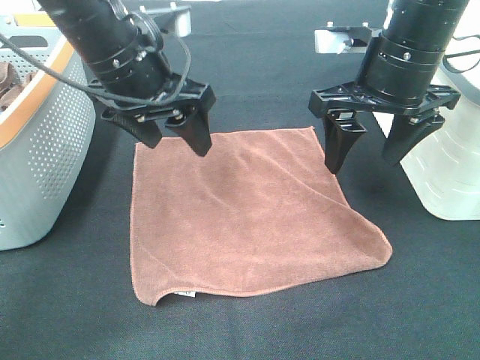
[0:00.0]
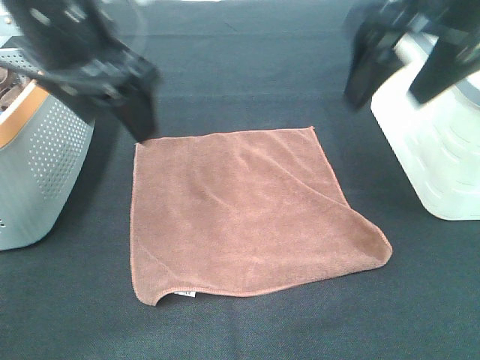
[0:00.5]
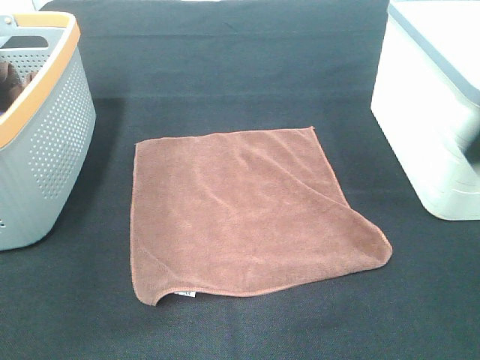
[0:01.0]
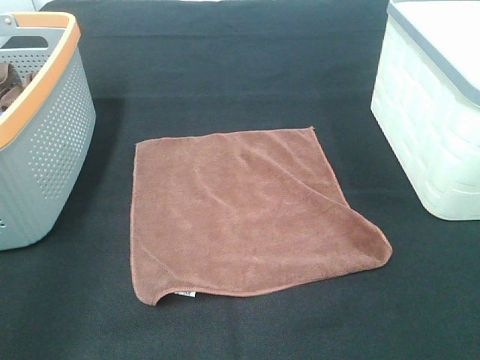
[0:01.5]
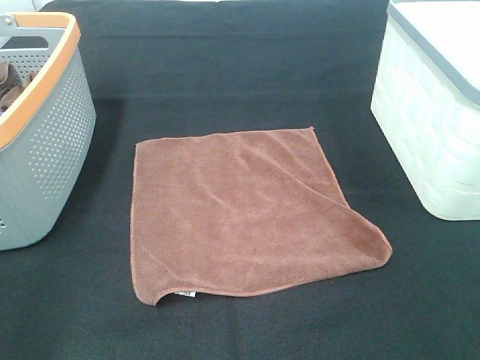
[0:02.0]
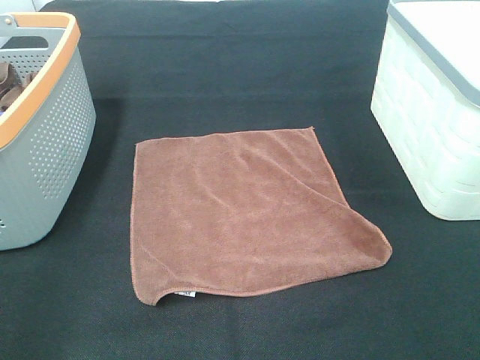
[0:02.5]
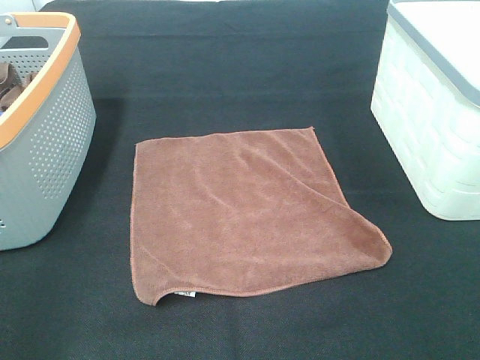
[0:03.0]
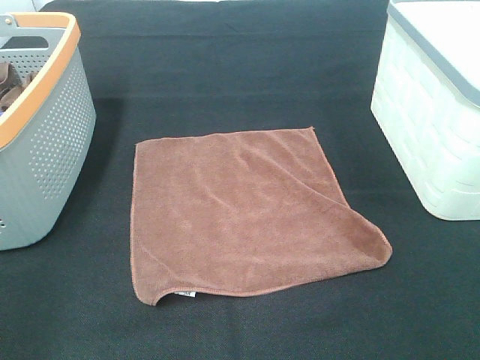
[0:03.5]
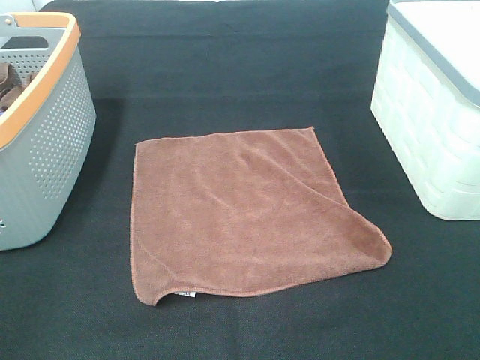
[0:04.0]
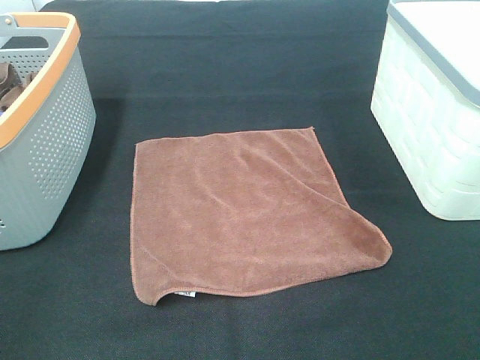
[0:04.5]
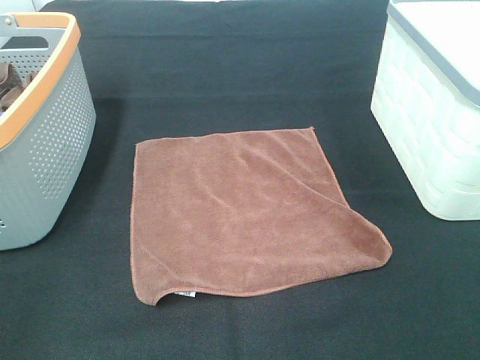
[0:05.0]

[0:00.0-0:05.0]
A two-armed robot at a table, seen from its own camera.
Task of the whole recording: Remove the towel and place it.
0:00.0 to 0:02.5: The left gripper travels backward and to the left by about 35 cm. The right gripper goes about 35 cm backward and to the right.

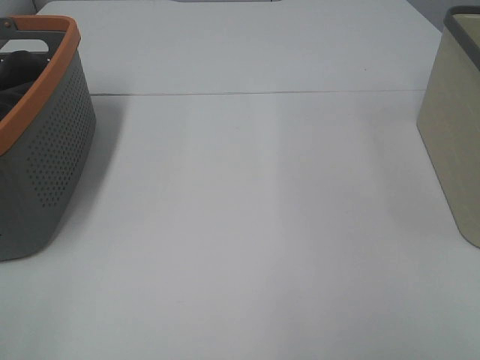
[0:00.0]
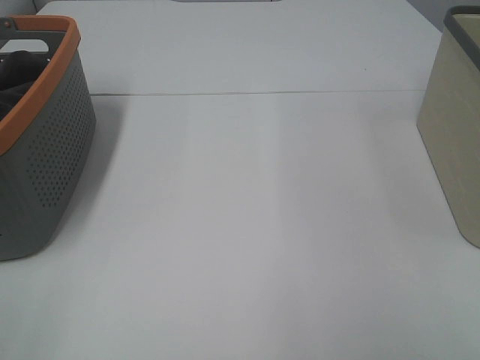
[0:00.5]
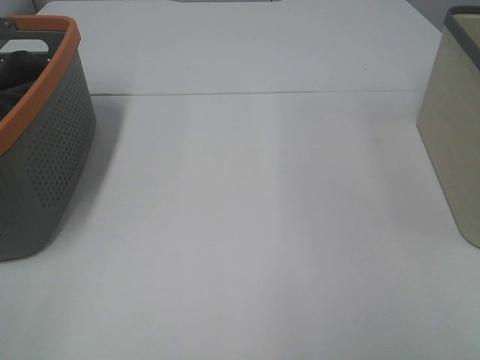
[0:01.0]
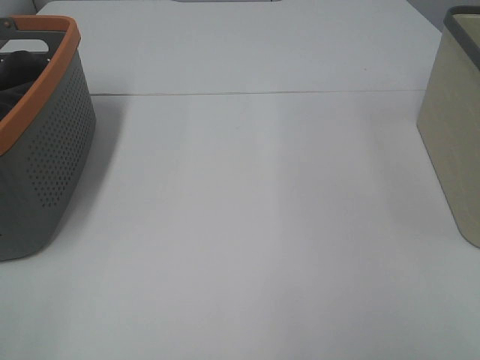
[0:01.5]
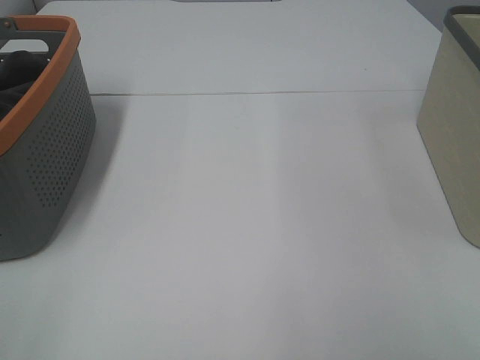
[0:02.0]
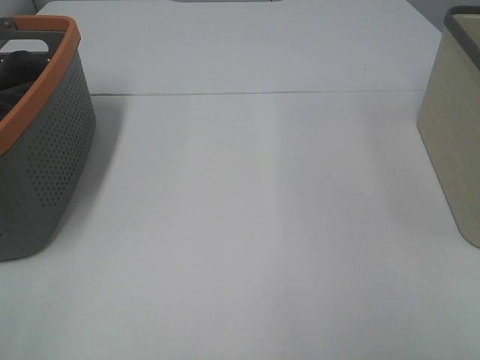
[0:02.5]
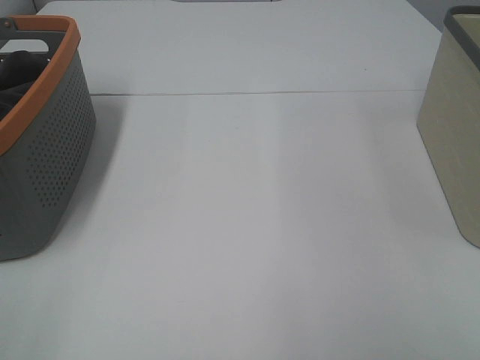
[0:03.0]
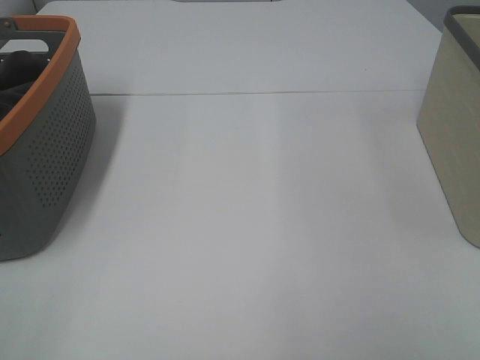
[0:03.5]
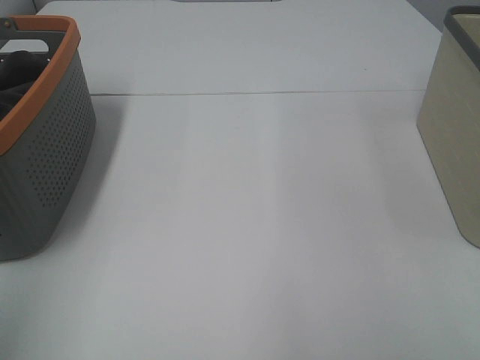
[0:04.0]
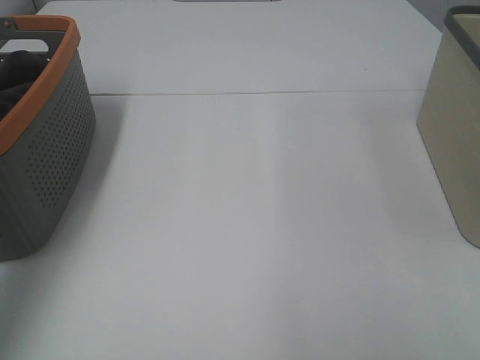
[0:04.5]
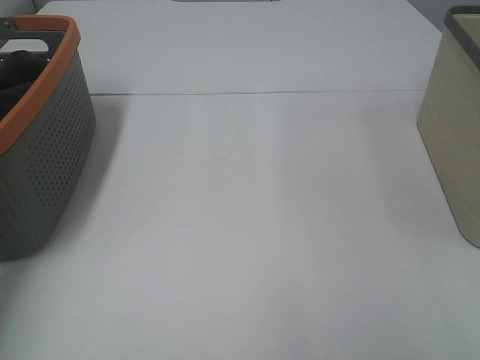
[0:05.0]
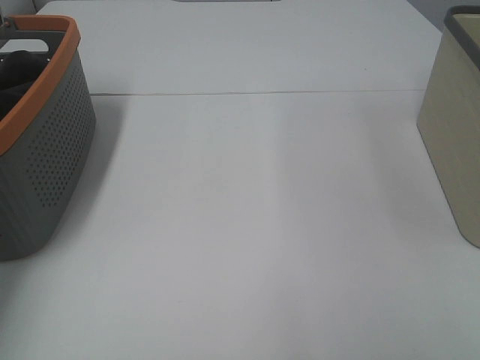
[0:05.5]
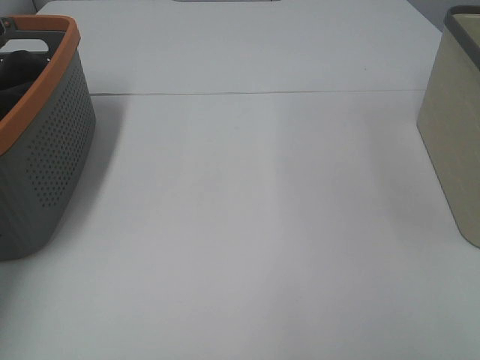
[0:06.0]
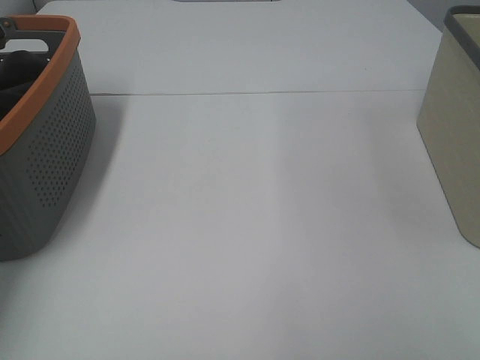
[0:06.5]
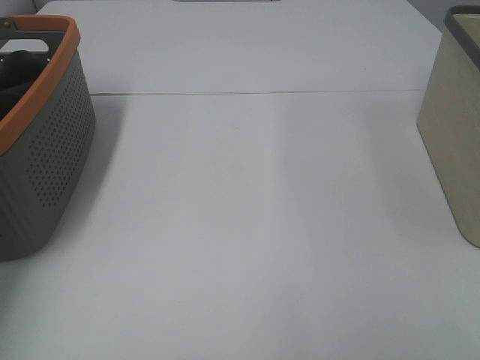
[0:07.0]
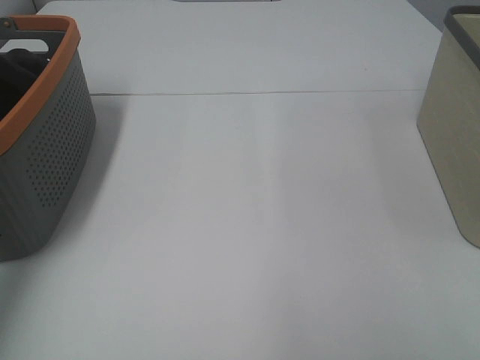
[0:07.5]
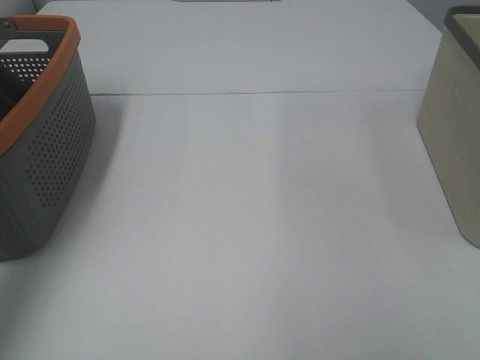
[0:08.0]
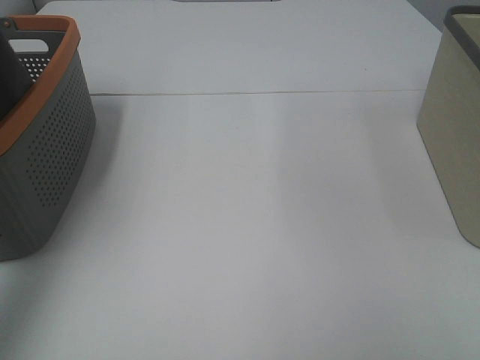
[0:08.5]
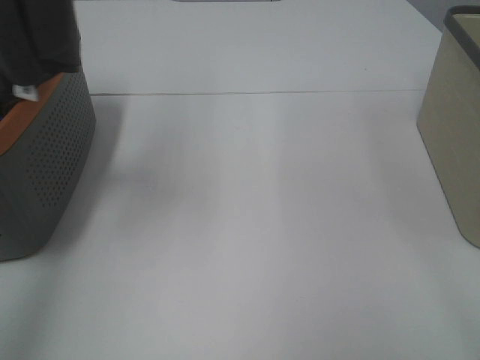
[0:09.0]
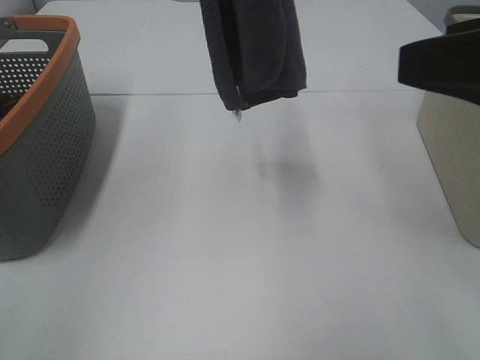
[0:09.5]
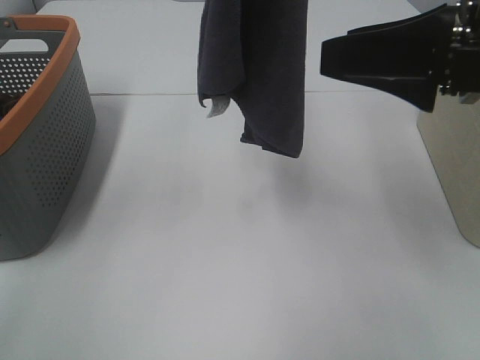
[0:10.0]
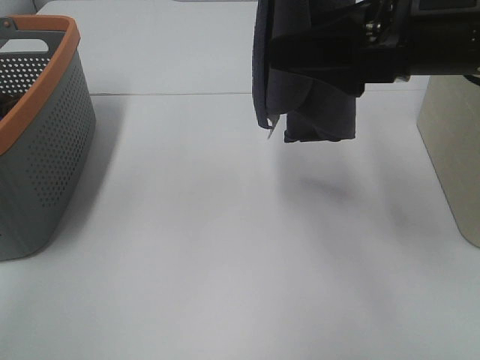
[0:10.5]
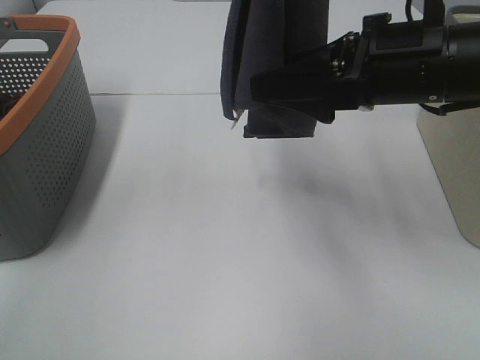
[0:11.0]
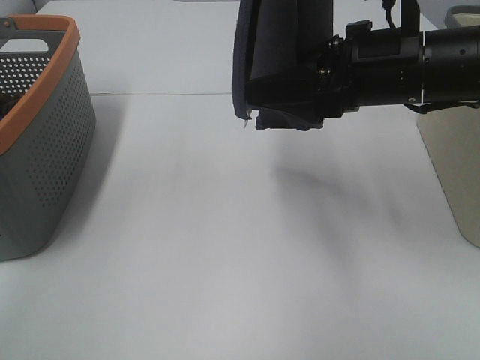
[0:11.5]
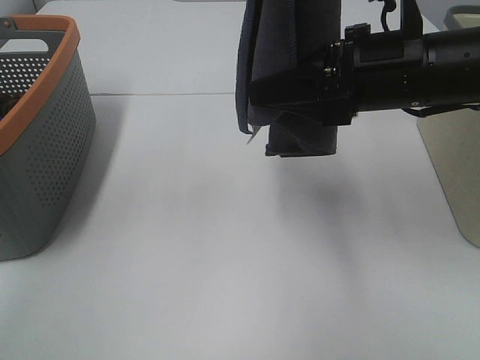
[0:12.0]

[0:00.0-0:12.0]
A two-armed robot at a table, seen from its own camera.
Task of the whole recording: Remove the towel and place it.
Step, 0:08.0 to 0:11.0: Right hand: grab a corner of the grey towel and straighten it.
0:00.0 to 0:02.0: The two grippers keep their place.
0:02.0 to 0:04.0: The left gripper is displaced upward and forward by about 15 cm.
0:06.0 to 0:08.0: The left gripper shifts approximately 30 cm upward and backward, and closes its fingers.
0:08.0 to 0:10.0: The right gripper is displaced forward and to the left by about 25 cm. Meanwhile the left gripper moves to the right, some 25 cm.
0:10.0 to 0:12.0: The right gripper moves forward and downward, some 10 cm, and closes its fingers.

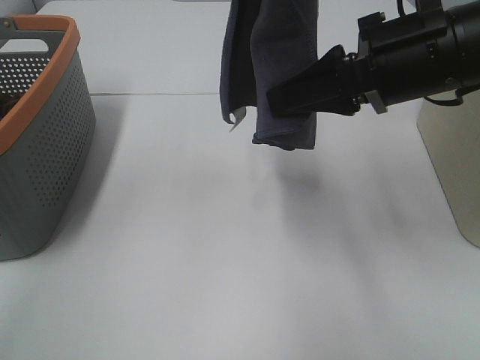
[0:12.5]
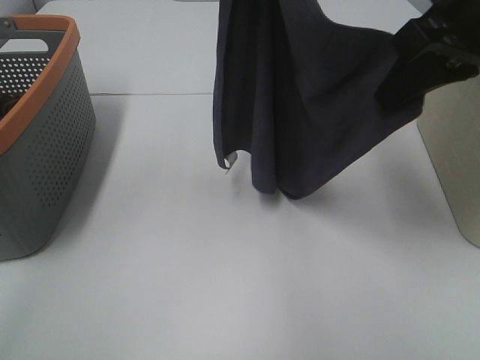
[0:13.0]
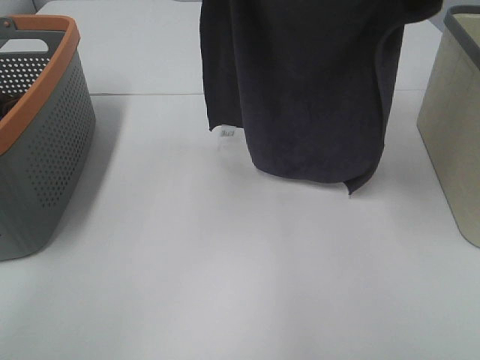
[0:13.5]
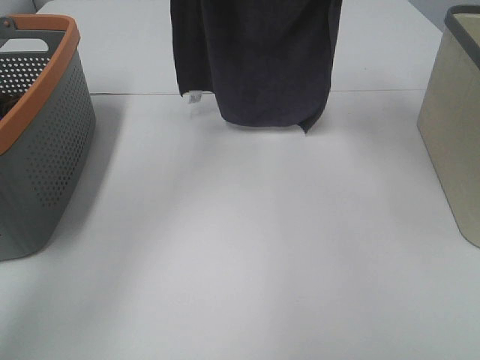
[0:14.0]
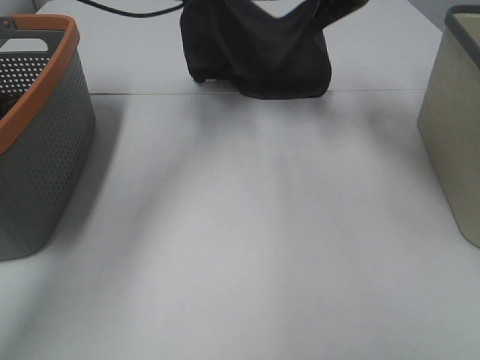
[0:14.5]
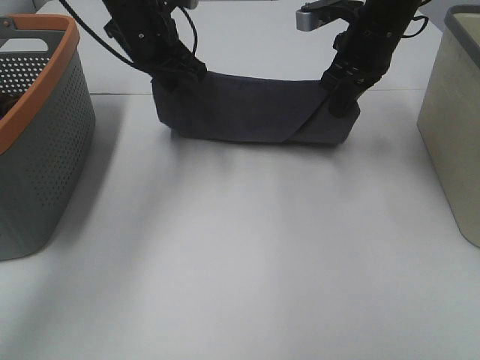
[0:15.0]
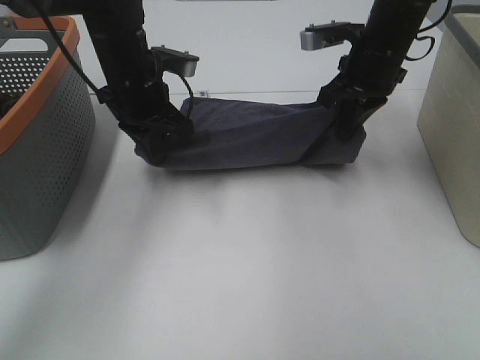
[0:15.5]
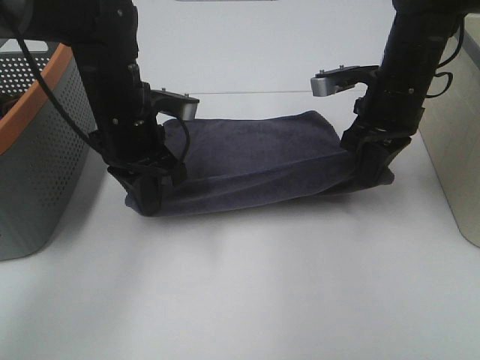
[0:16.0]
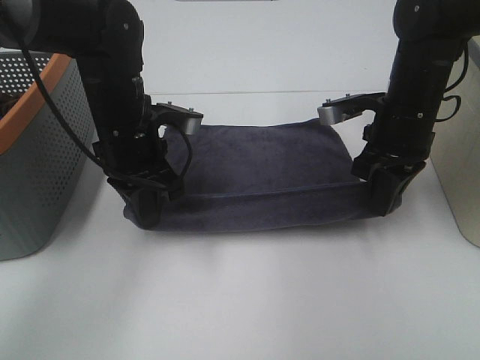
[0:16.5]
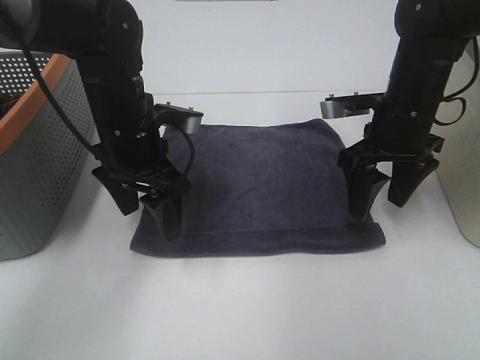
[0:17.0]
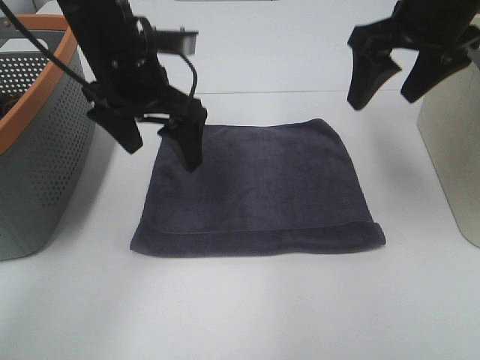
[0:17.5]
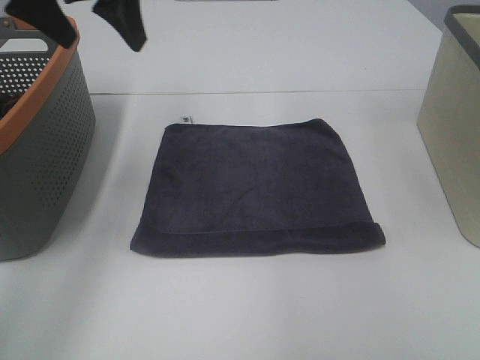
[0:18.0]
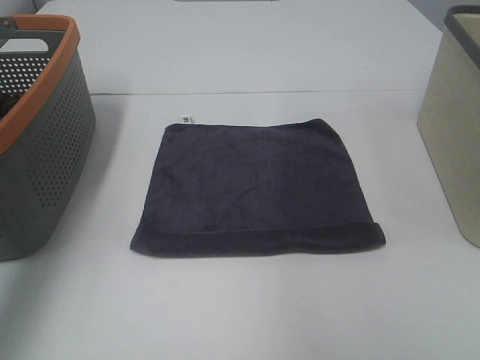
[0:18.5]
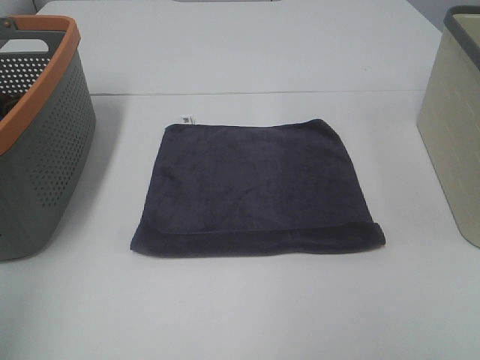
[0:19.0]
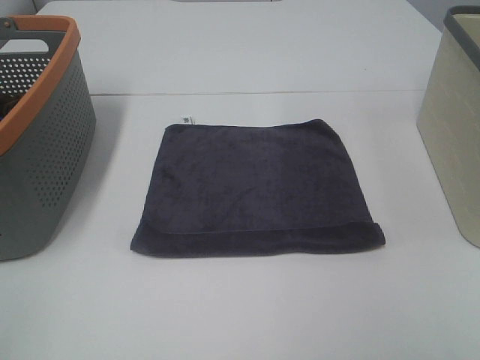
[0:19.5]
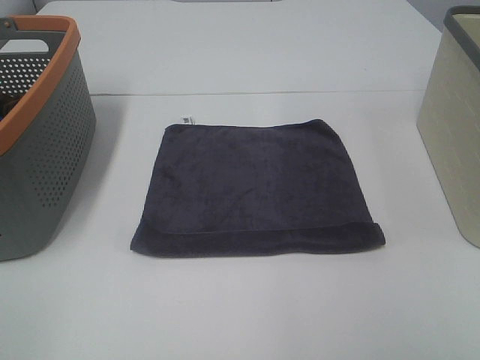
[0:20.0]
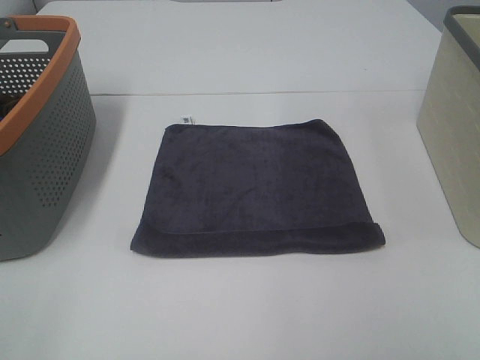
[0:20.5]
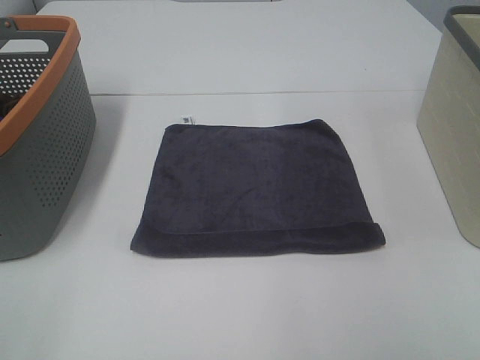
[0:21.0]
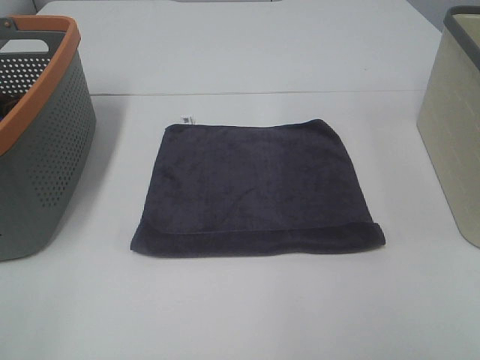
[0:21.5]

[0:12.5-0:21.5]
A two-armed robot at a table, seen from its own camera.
Task of the whole recording: Remove the towel and place it.
0:12.5 to 0:14.5: The right gripper is displaced forward by approximately 25 cm; the left gripper moves downward and forward, approximately 30 cm.
0:14.5 to 0:17.0: Both grippers travel together backward and downward, some 20 cm. The left gripper opens, while the right gripper opens its fingers.
0:17.0 to 0:19.5: The right gripper shifts some 40 cm backward and upward; the left gripper goes approximately 40 cm backward, to the left and upward.
